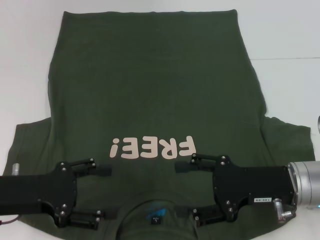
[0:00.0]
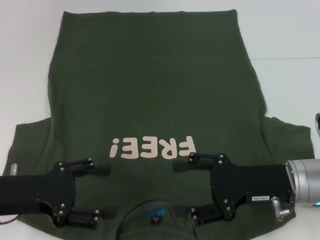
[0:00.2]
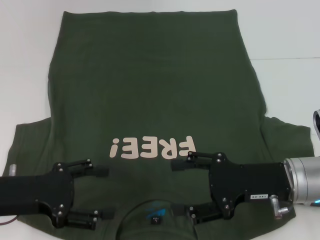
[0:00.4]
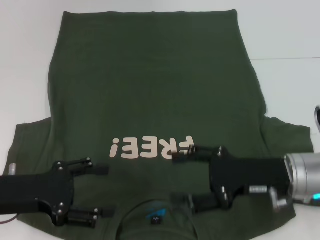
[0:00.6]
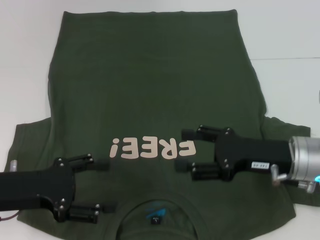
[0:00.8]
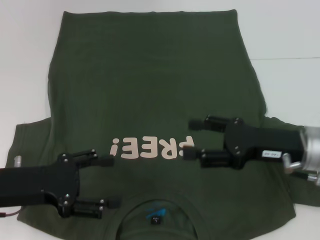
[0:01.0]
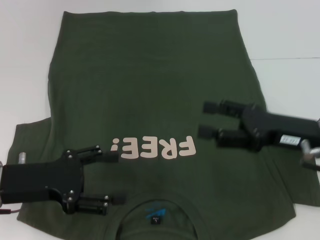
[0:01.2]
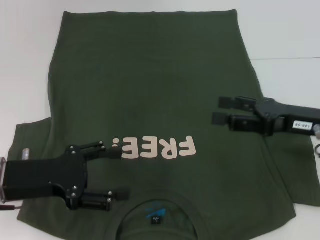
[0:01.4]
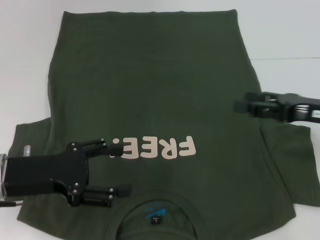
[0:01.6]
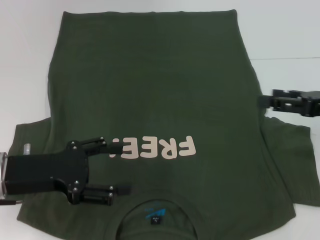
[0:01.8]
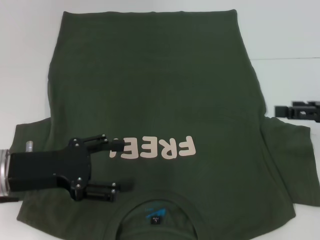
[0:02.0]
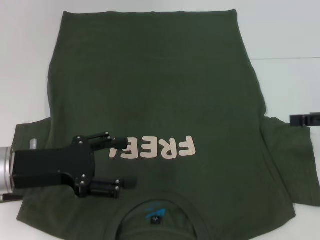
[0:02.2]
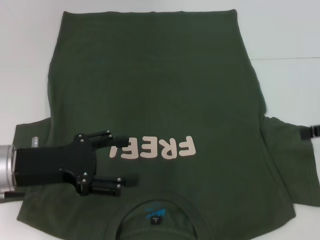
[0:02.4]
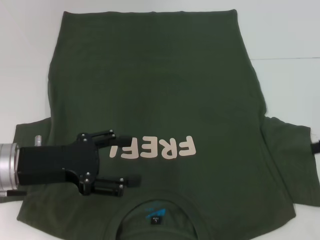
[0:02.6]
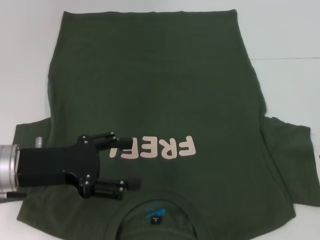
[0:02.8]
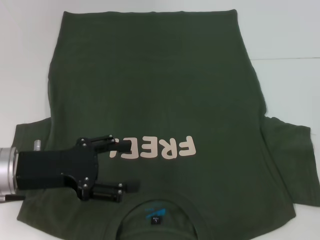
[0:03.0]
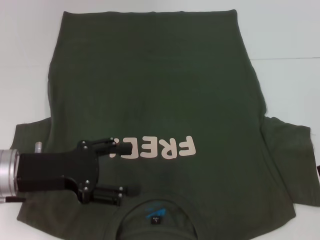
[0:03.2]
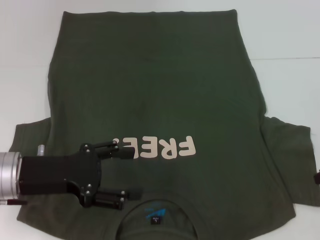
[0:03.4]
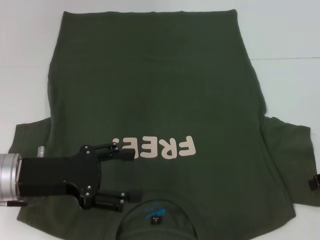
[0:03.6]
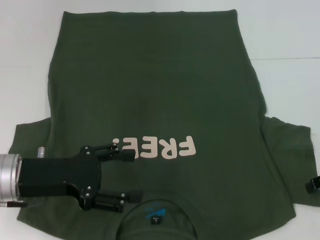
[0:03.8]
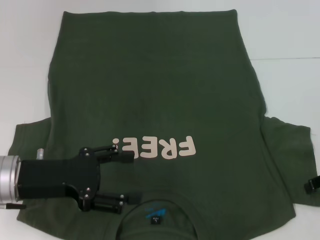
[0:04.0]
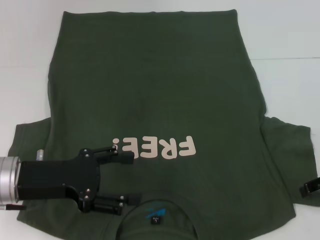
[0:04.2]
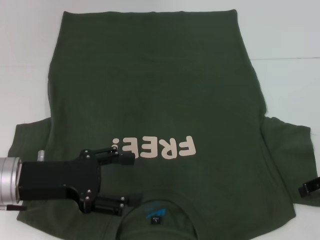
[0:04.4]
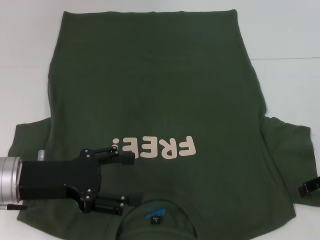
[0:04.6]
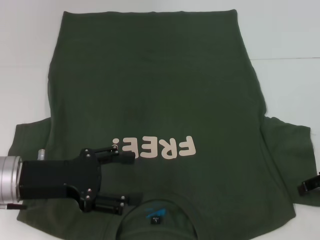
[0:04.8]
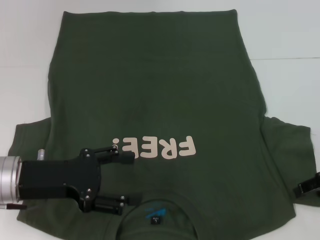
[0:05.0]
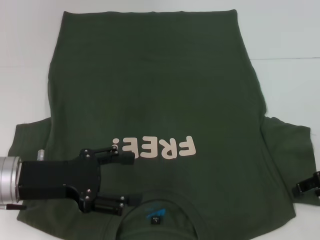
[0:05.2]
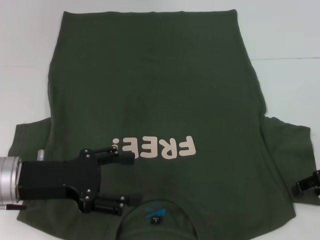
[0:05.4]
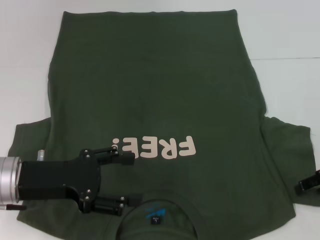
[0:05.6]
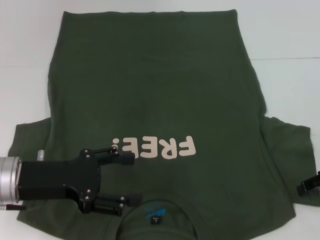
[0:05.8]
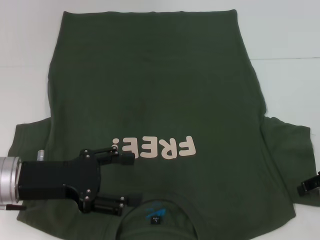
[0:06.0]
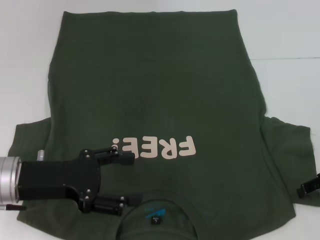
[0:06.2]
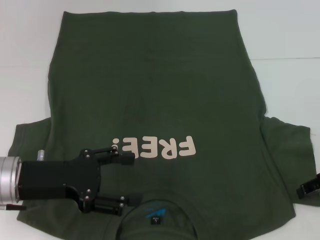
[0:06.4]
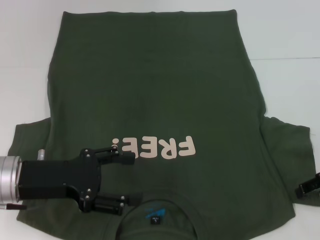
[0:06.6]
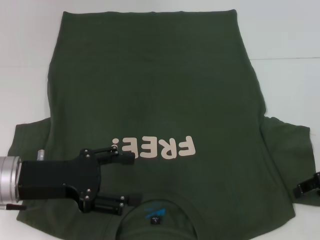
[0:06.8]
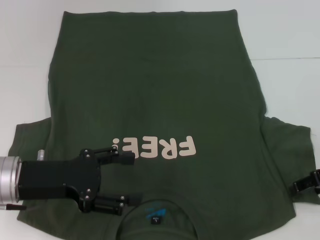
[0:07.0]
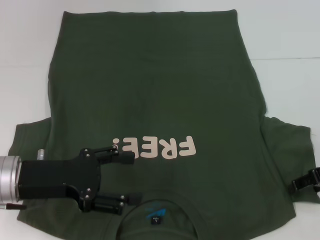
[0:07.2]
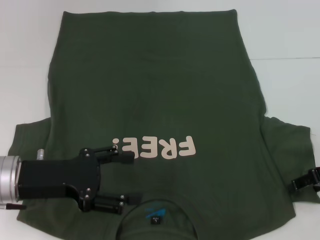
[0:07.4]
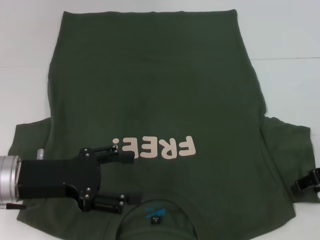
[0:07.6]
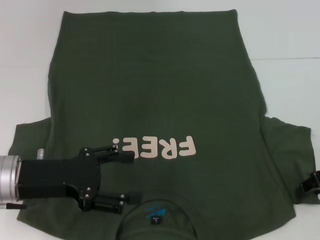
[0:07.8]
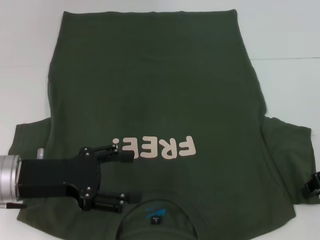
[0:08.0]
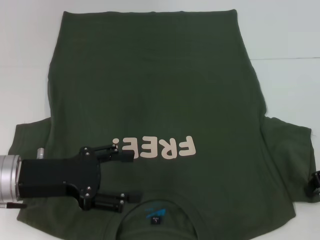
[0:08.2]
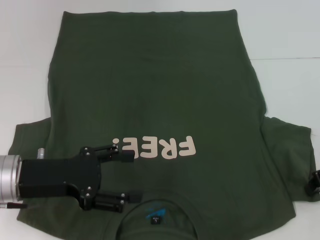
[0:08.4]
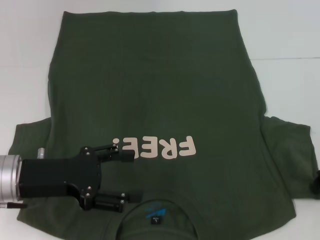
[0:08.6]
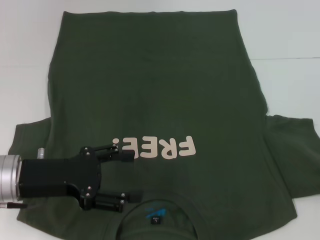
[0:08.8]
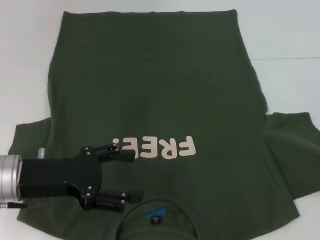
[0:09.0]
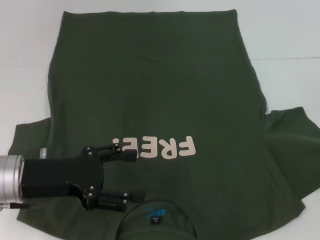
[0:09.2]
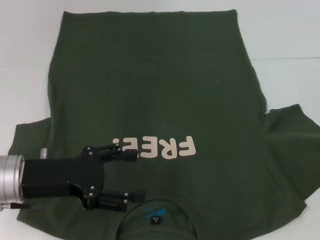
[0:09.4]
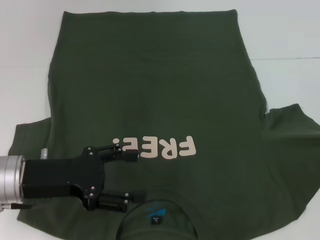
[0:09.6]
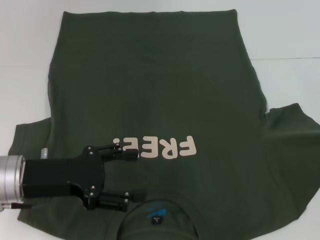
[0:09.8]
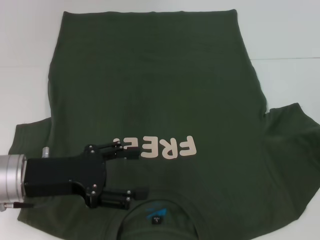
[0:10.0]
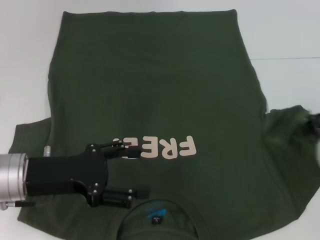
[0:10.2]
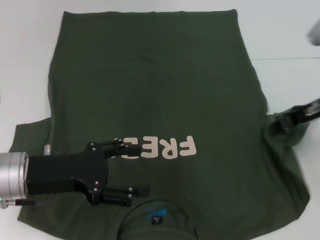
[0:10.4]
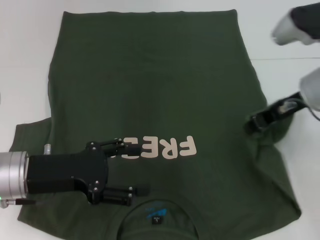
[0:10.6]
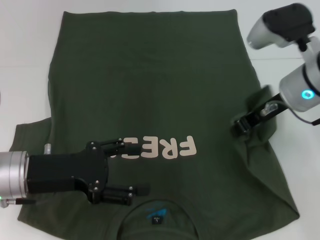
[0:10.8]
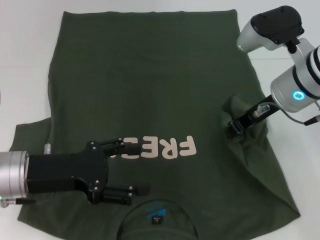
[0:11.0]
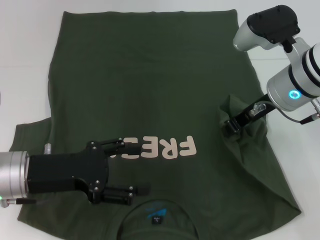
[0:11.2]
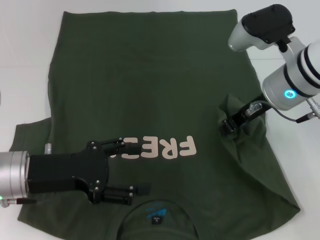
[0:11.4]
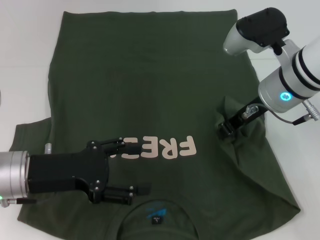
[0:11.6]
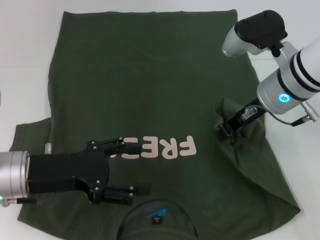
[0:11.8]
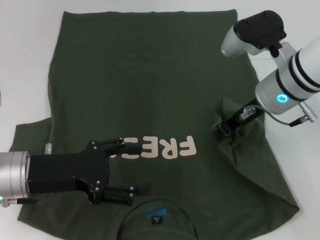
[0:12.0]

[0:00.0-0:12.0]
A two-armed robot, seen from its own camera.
0:00.0 to 0:01.6: The right gripper shifts about 10 cm to the right and upward.
0:01.6 to 0:03.0: The right gripper moves to the right, approximately 5 cm.
0:03.0 to 0:04.4: The right gripper moves downward, roughly 5 cm.
0:04.4 to 0:06.0: Both grippers stay about where they are.
0:06.0 to 0:07.6: The two grippers keep their place.
0:07.6 to 0:09.0: The right gripper closes its fingers.
0:09.0 to 0:10.4: The right gripper is displaced to the left by approximately 10 cm.
0:10.4 to 0:12.0: The right gripper goes roughly 10 cm to the left.

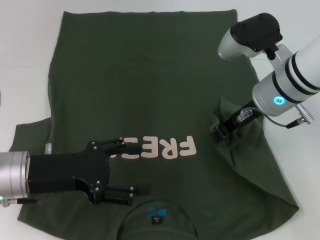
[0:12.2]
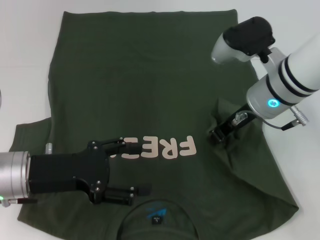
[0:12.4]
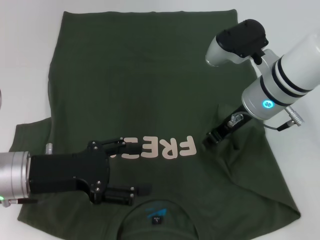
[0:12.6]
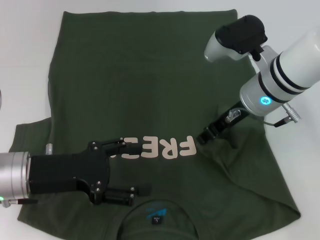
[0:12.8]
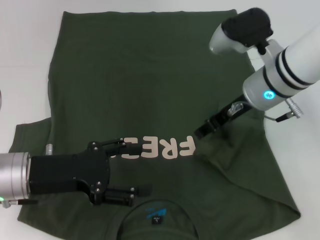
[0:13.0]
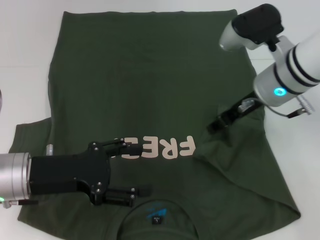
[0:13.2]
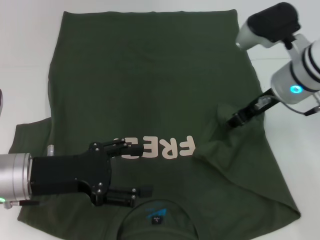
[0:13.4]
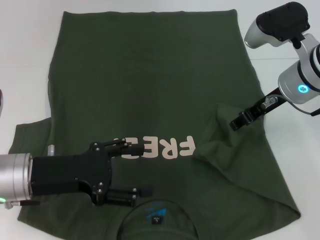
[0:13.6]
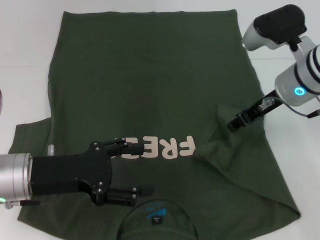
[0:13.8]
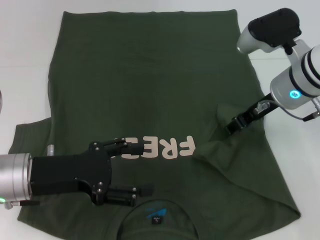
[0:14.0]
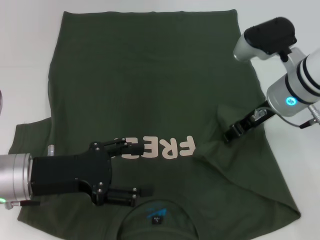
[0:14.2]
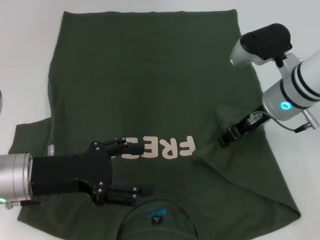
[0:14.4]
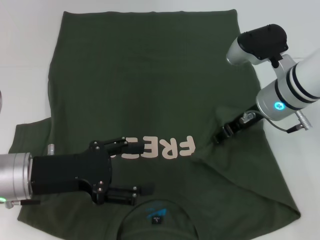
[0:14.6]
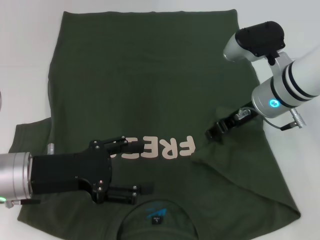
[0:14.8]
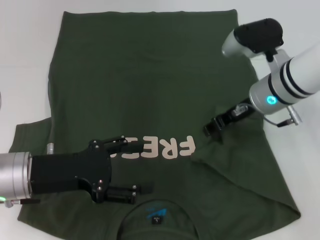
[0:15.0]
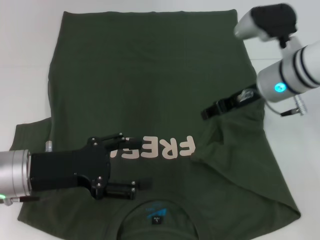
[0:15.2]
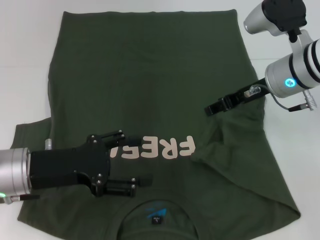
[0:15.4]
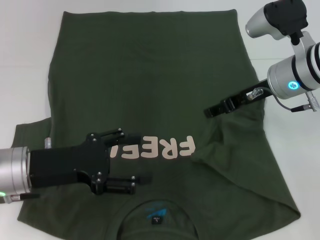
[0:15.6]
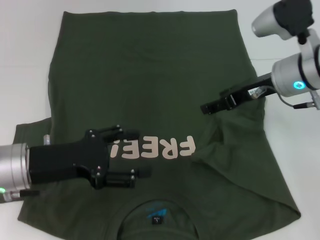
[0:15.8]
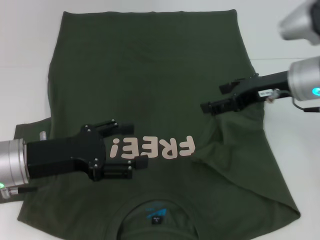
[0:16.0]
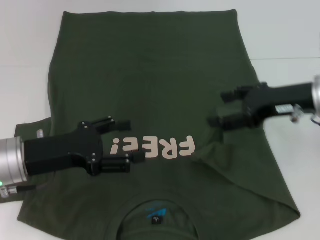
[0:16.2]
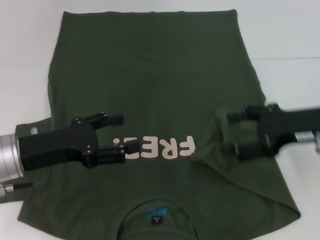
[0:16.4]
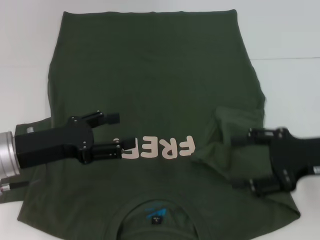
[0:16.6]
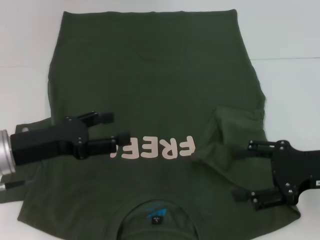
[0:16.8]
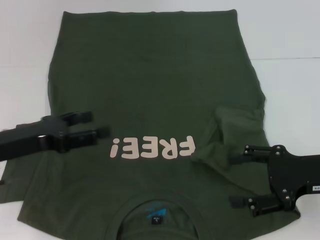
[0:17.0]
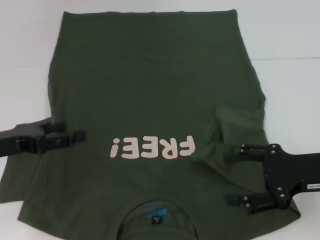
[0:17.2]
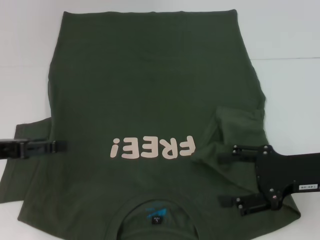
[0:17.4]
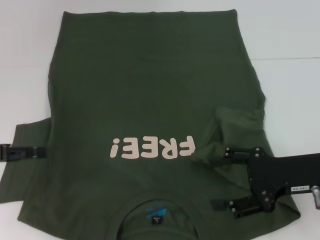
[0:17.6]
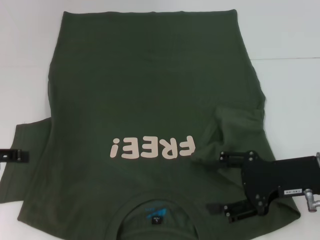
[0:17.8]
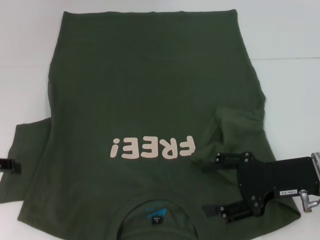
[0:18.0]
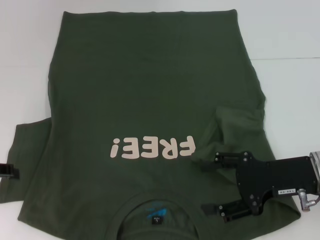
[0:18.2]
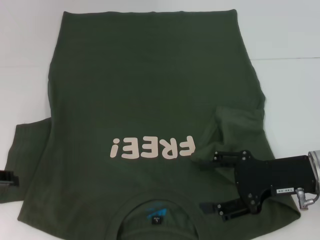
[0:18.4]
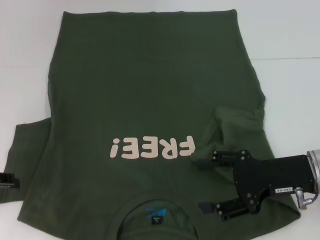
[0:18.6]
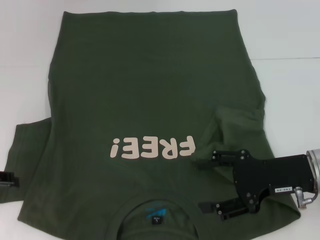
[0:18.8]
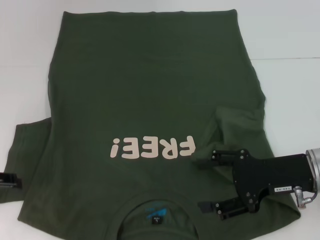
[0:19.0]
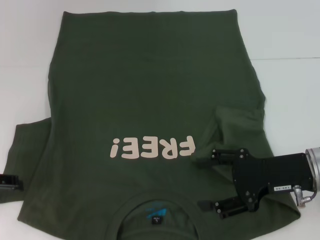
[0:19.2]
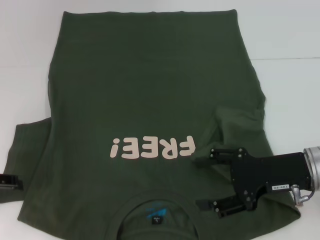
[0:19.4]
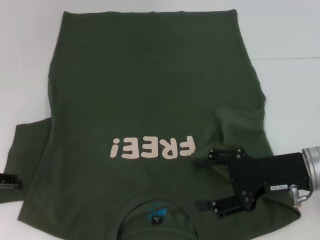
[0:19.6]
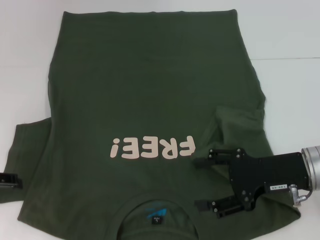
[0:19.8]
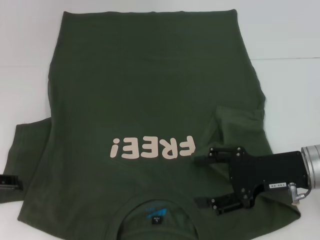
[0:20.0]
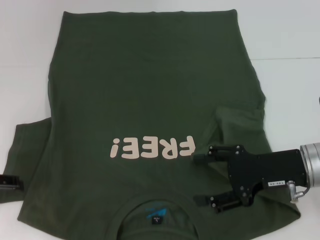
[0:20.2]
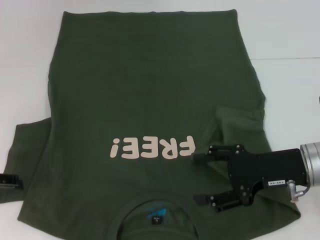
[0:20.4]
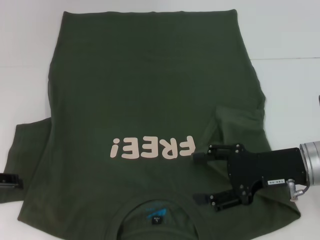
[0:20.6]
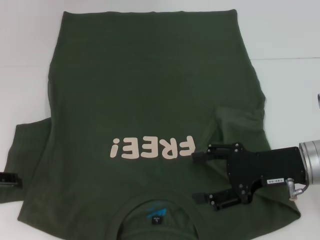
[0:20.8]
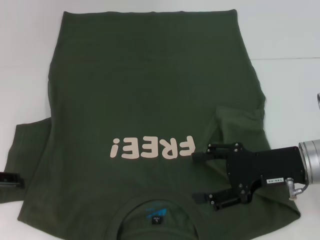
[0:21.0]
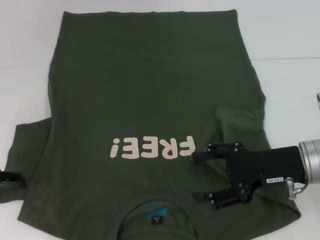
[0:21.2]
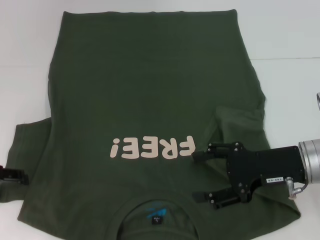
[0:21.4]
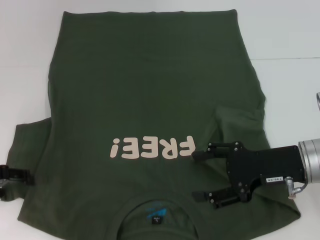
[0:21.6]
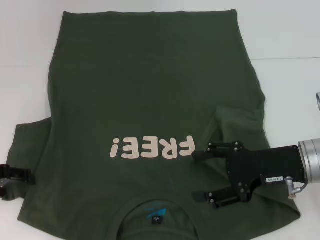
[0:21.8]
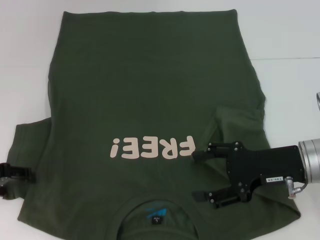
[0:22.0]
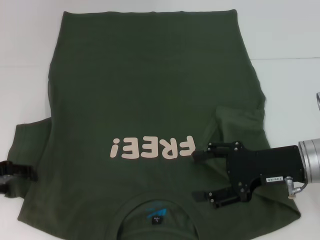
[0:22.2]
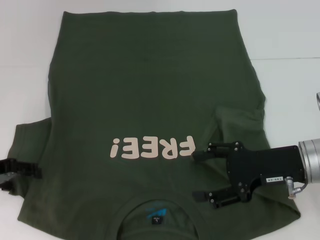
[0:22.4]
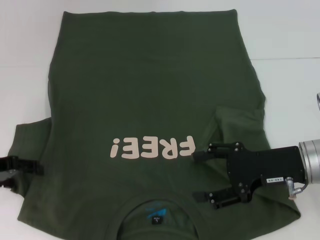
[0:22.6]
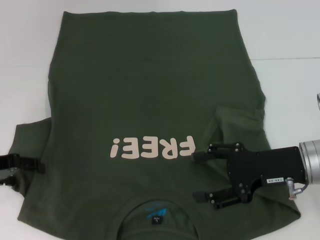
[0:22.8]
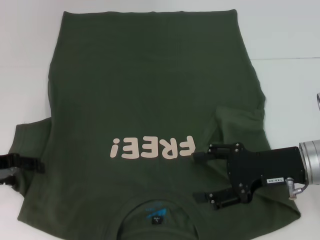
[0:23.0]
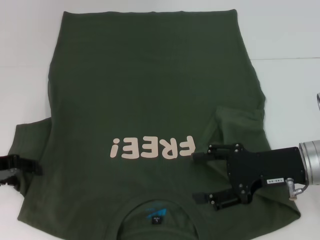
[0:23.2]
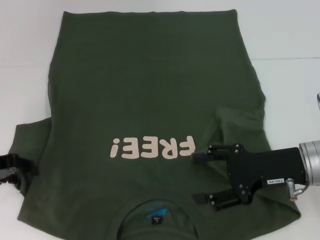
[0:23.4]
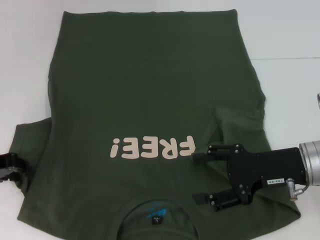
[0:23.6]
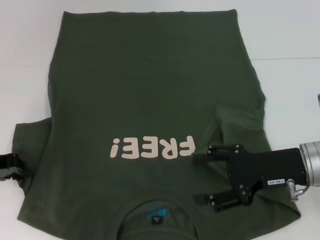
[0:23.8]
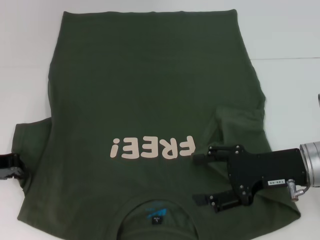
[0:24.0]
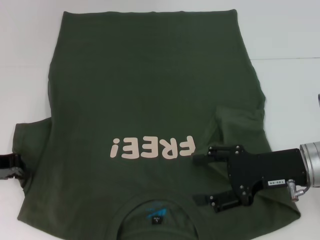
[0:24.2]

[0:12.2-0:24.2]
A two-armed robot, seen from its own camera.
0:12.2 to 0:13.8: The right gripper opens its fingers.
0:13.8 to 0:15.2: The grippers make only small movements.
0:15.2 to 0:16.6: The right gripper moves backward and to the right, approximately 15 cm, and opens.
0:16.6 to 0:18.2: The right gripper moves roughly 5 cm. The left gripper is displaced to the left by some 10 cm.
0:18.2 to 0:19.8: There are only small adjustments of the grippers.
0:19.8 to 0:21.2: Neither gripper changes place.
0:21.2 to 0:22.6: The grippers move only a little.
0:22.6 to 0:24.2: The left gripper closes.
